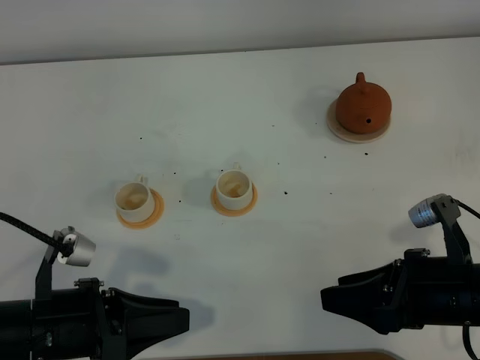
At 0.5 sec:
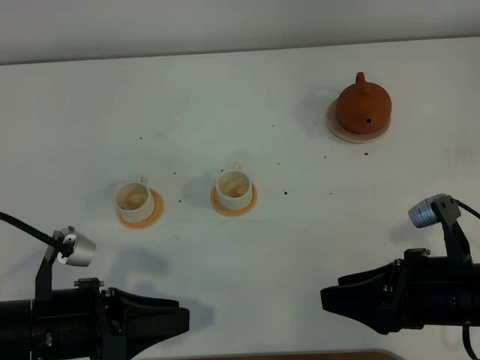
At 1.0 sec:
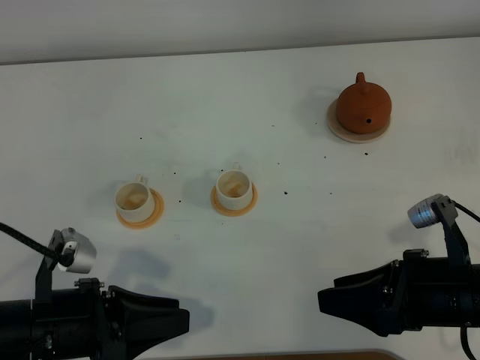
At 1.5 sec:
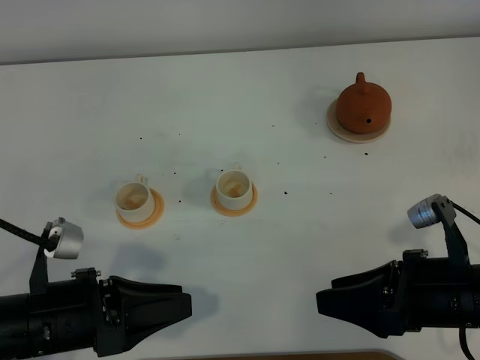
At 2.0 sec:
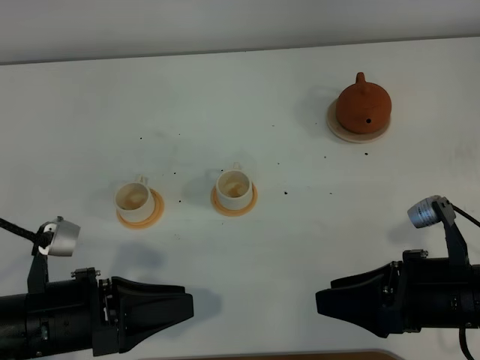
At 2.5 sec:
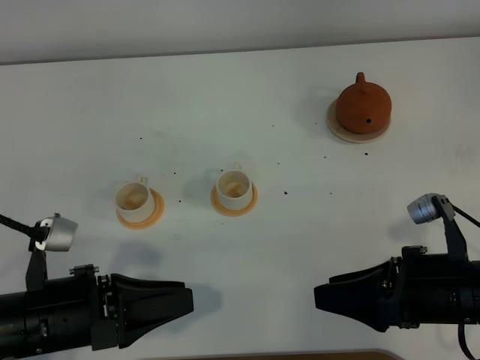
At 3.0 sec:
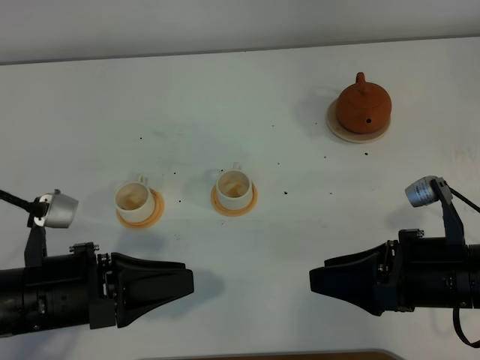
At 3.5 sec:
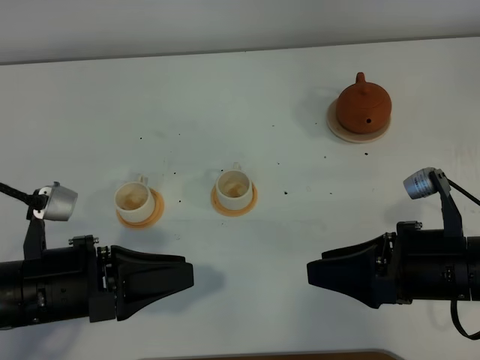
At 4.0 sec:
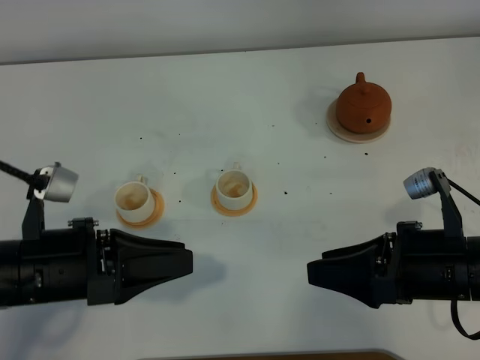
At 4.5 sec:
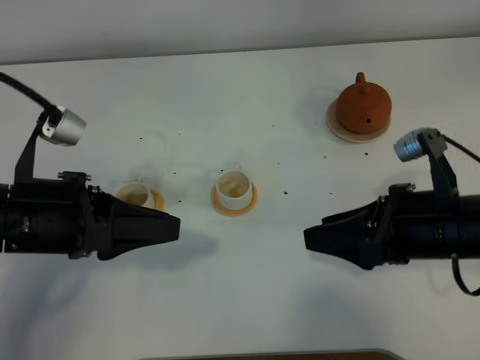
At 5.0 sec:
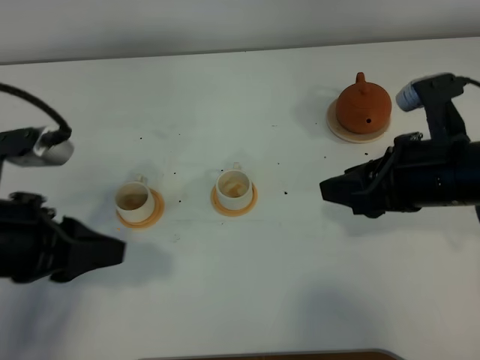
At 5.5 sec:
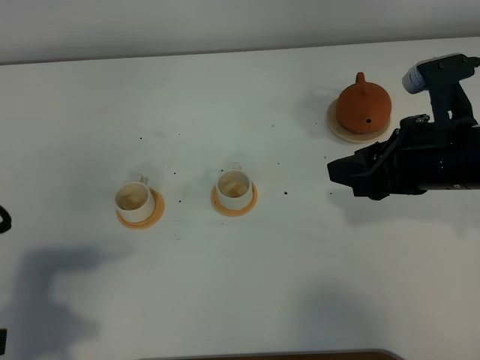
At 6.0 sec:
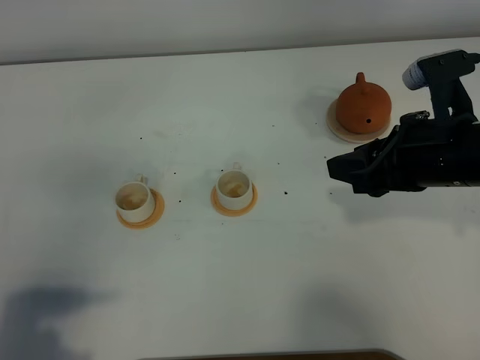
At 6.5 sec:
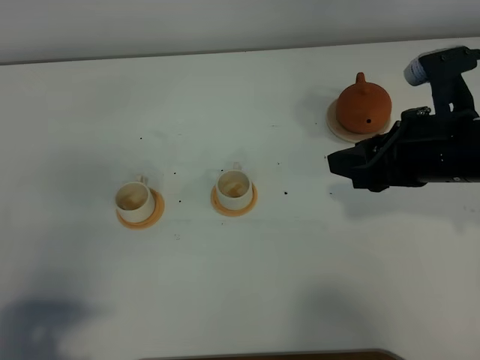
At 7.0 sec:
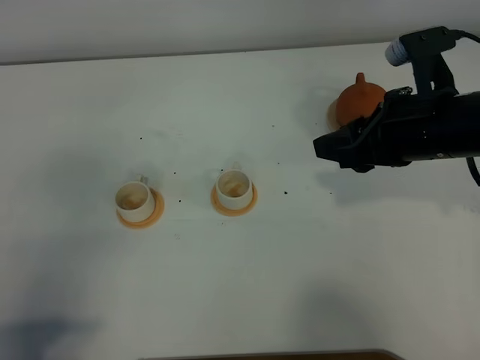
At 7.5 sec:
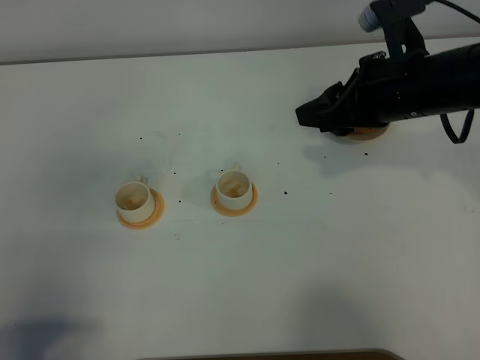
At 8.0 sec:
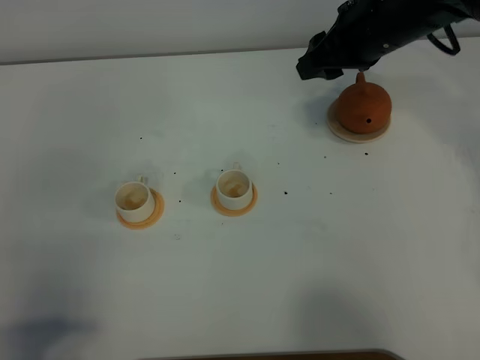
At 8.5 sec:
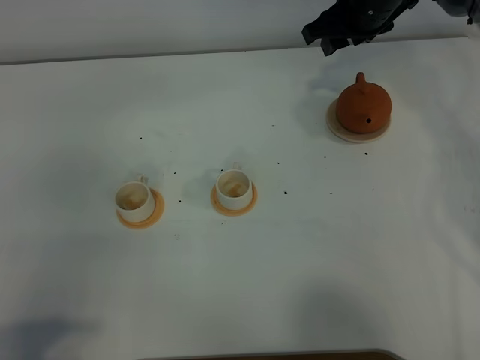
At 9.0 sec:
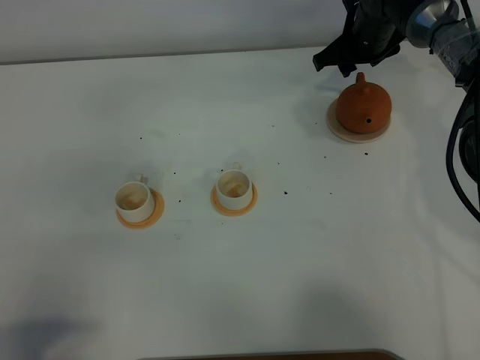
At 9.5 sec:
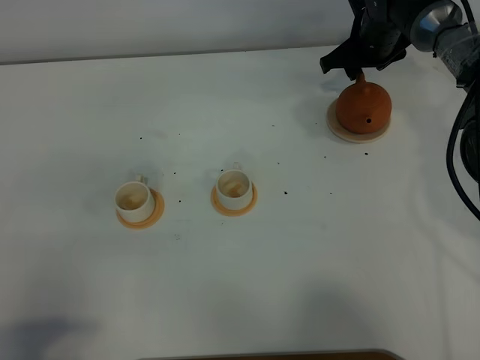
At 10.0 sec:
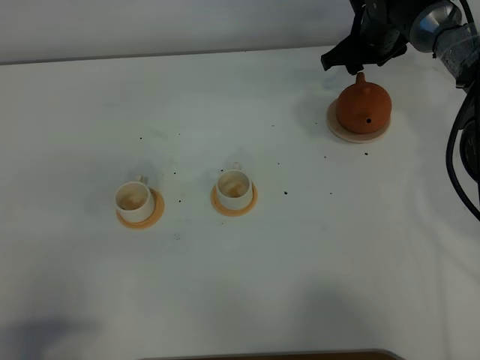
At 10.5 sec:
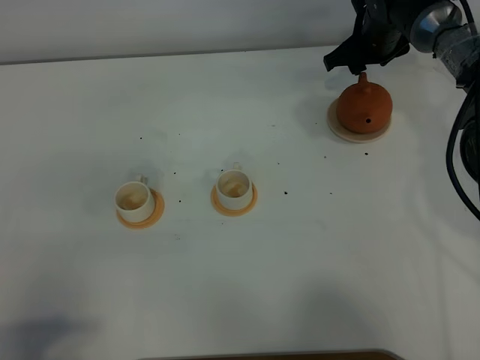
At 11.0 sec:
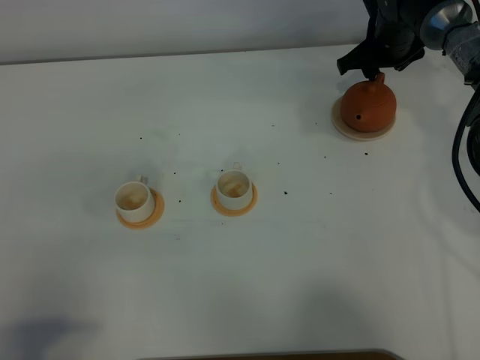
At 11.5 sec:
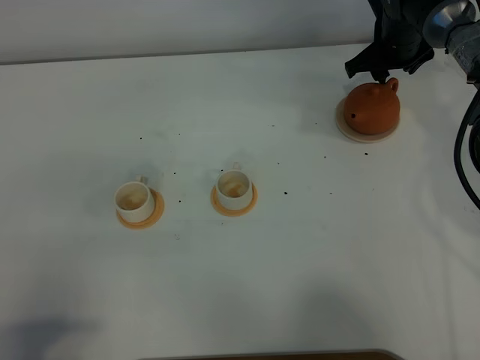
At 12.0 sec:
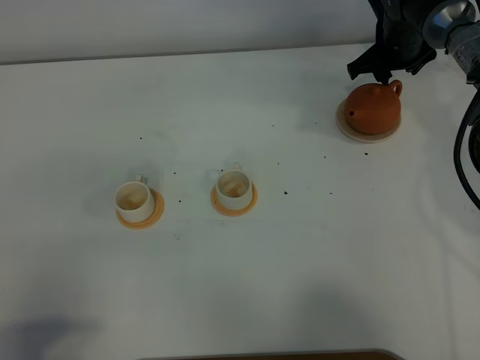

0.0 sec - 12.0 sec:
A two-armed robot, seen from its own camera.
Task of the whole recording: grasp the brown teapot and pour the tea into the two white teacups one by one, put the brown teapot back in its original place.
0.0 sec - 2.0 sec: The grippers stay close to where they were, moving slightly.
2.0 sec - 4.0 sec: The left gripper moves some 5 cm.
4.0 sec - 6.0 sec: The left gripper heads backward, to the left and upward, covering approximately 15 cm. Meanwhile the right gripper goes some 10 cm forward and upward.
6.0 sec - 8.0 sec: The right gripper moves forward and to the left, some 20 cm.
8.0 sec - 10.0 sec: The right gripper is displaced forward and downward by roughly 15 cm.
10.0 sec - 12.0 sec: The grippers move only a little.

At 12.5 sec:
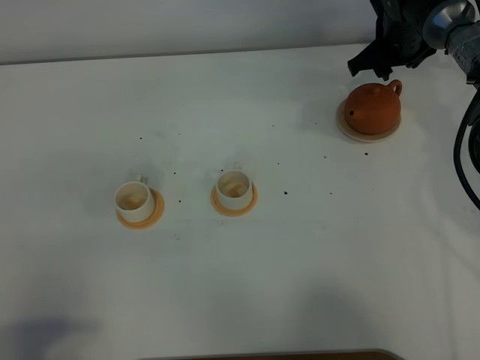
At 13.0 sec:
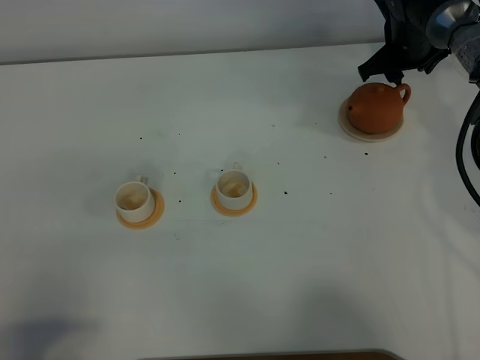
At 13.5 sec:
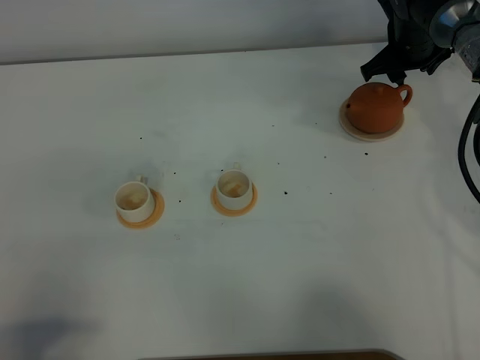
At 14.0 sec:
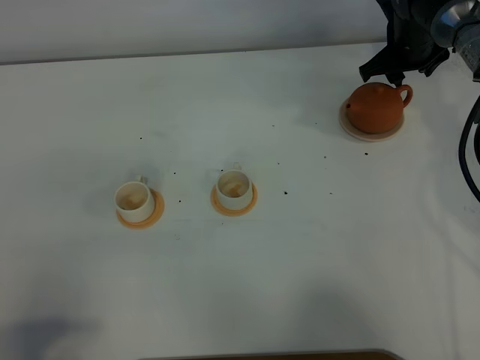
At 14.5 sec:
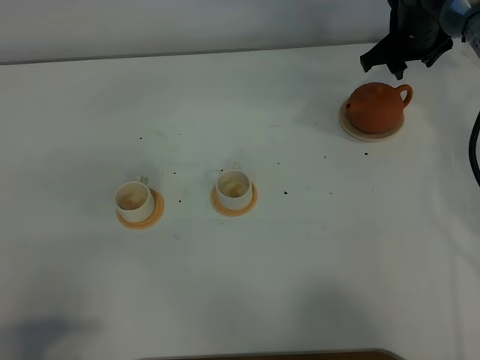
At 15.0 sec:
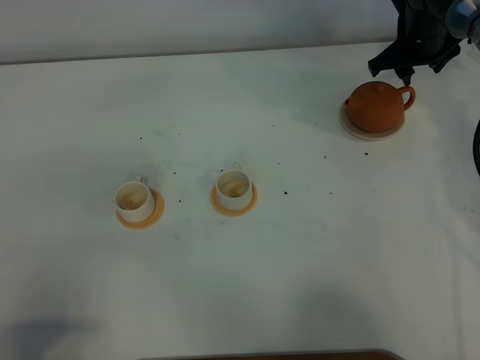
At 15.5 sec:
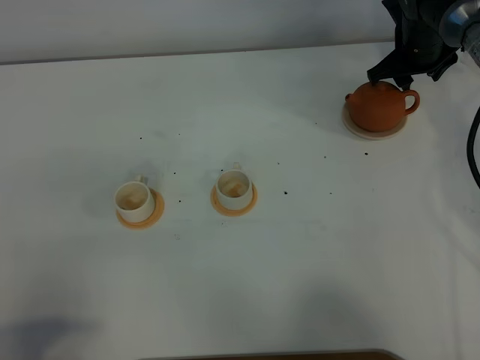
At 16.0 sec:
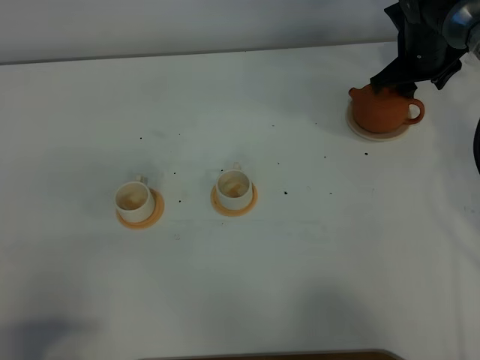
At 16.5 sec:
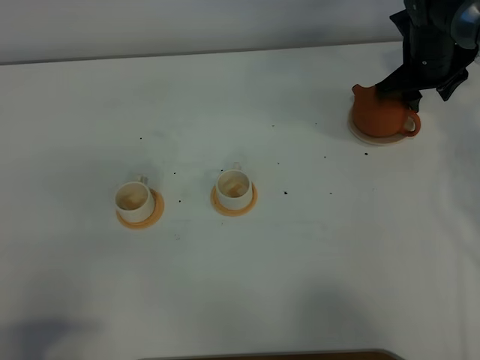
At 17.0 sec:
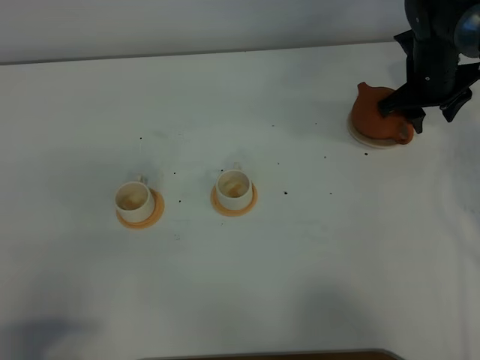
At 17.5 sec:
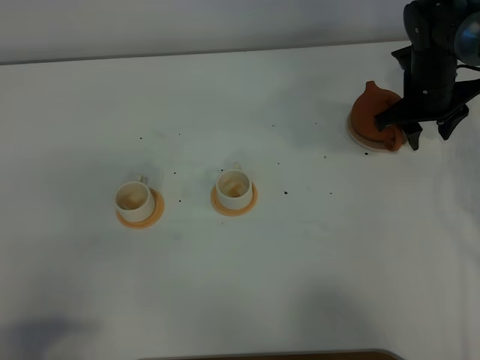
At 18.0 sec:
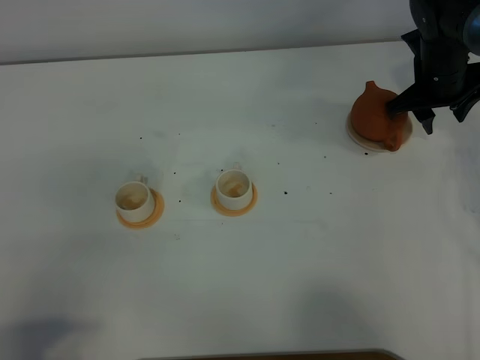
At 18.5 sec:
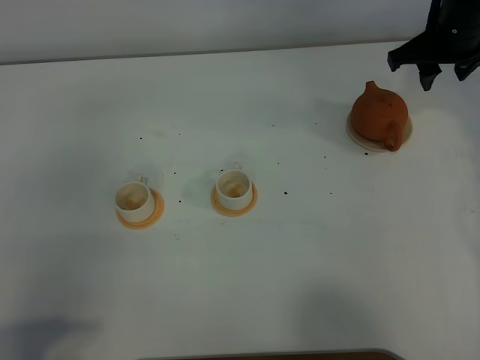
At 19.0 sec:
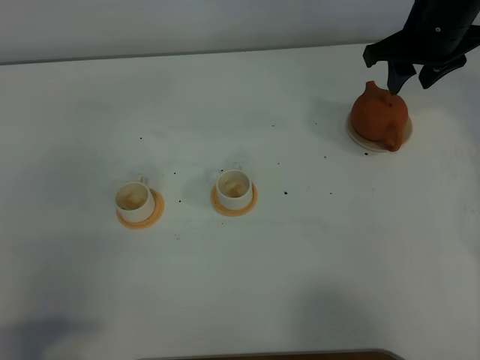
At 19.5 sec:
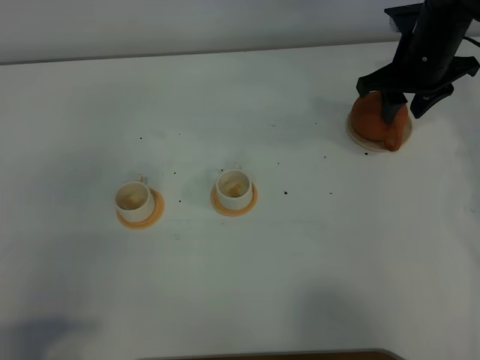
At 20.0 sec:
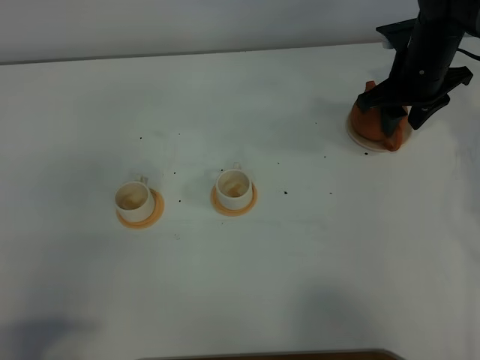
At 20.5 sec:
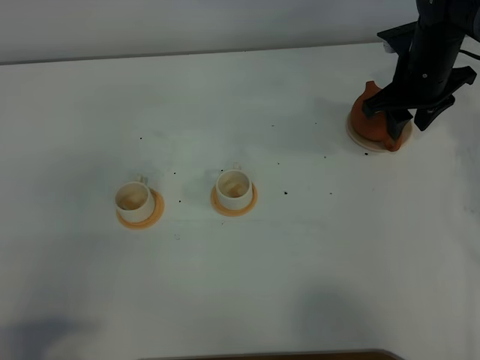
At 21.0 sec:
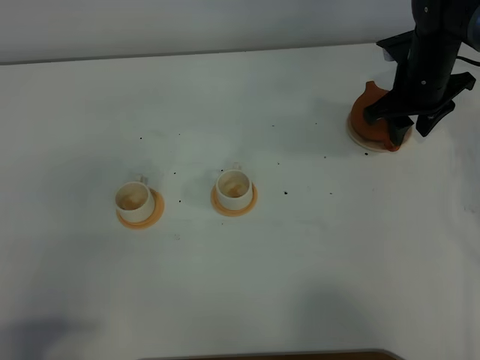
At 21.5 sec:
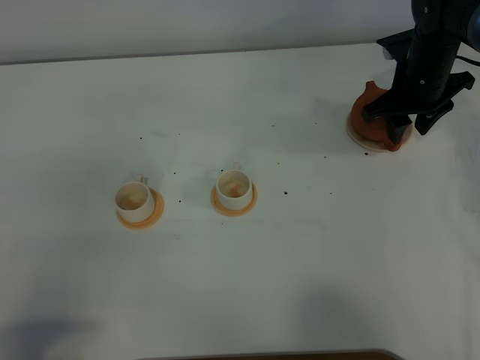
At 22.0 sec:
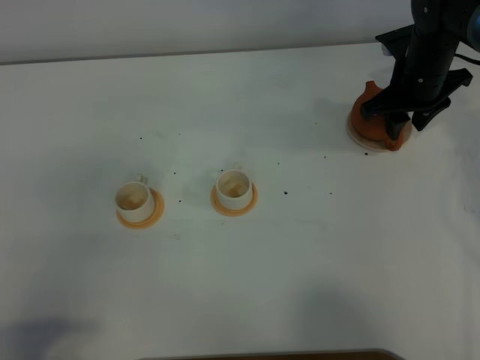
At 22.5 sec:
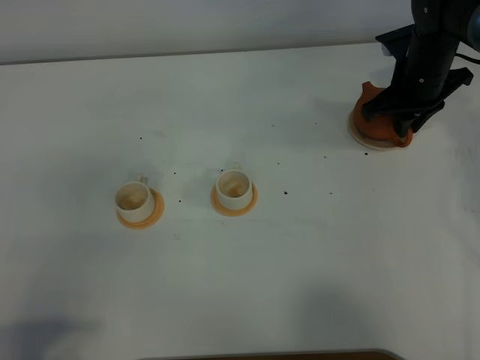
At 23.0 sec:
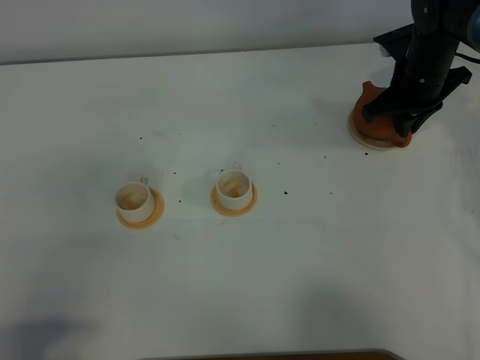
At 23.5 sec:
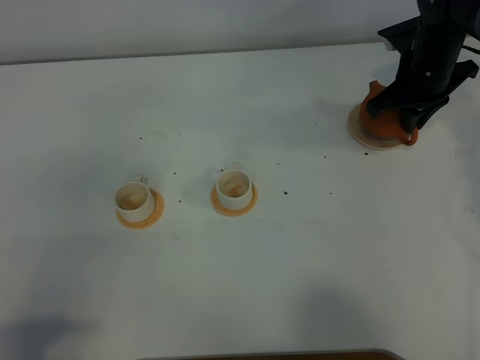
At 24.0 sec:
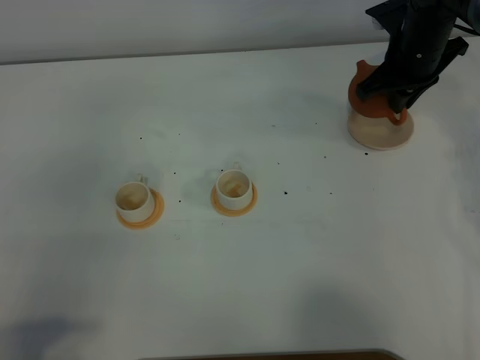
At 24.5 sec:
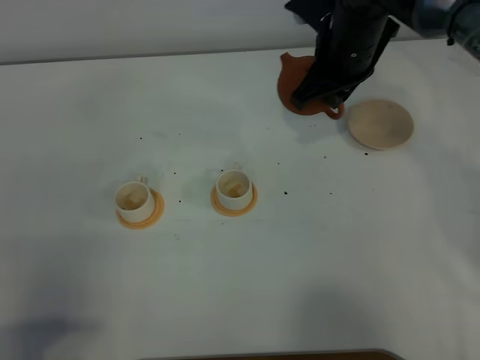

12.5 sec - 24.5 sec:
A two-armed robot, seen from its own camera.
Task of the whole recording: grasp the brown teapot and pour the tea into the two white teacups one by one, put the brown teapot back in its original place.
Step, 12.5 sec - 24.0 sec: Pick up the teapot with the right gripper.
12.5 sec - 16.5 sec: There are only small adjustments of the grippers.
16.5 sec - 18.5 sec: The right gripper moves upward, some 10 cm.
18.5 sec - 20.5 sec: The right gripper travels downward by about 10 cm.
20.5 sec - 22.5 sec: The right gripper closes up.
22.5 sec - 24.5 sec: The right gripper heads to the left, upward and backward, covering approximately 15 cm.

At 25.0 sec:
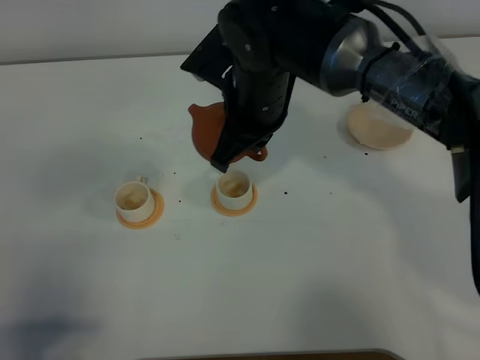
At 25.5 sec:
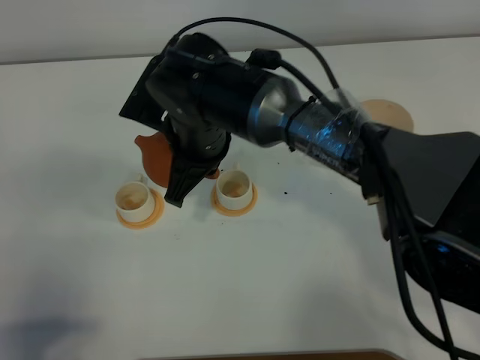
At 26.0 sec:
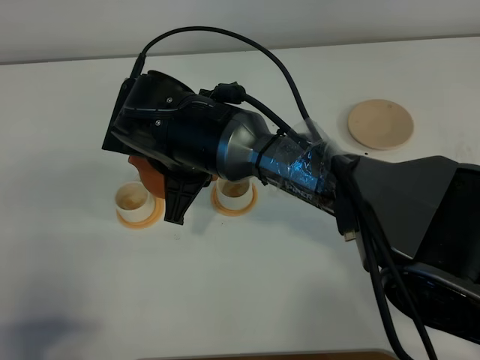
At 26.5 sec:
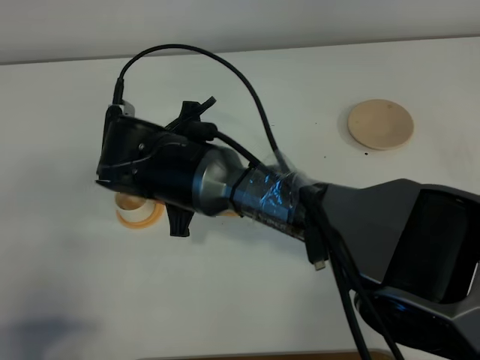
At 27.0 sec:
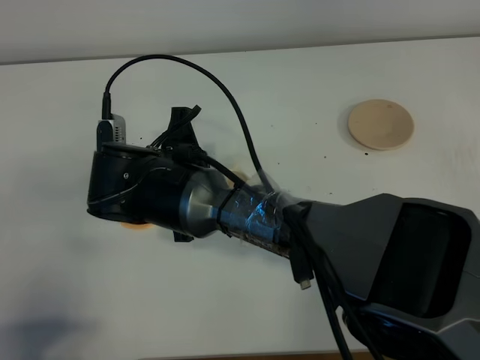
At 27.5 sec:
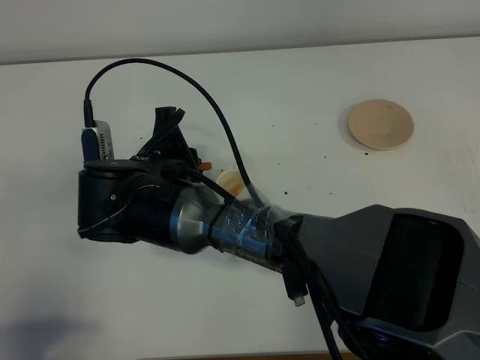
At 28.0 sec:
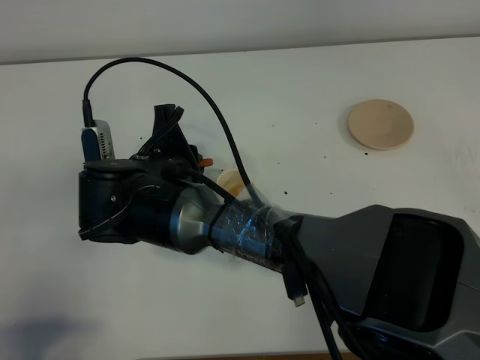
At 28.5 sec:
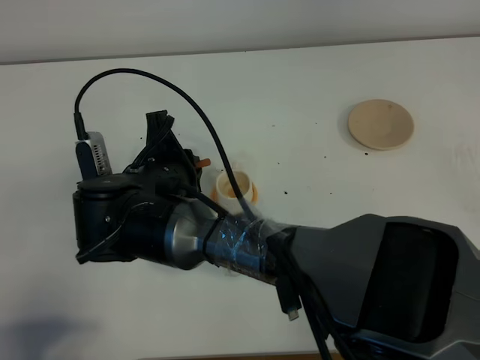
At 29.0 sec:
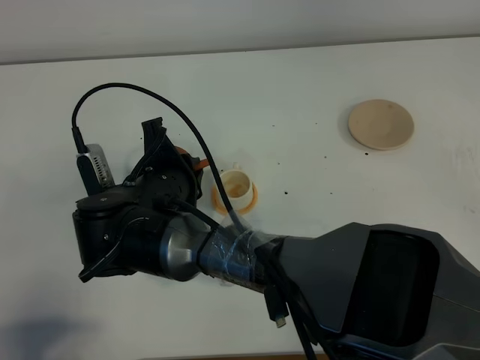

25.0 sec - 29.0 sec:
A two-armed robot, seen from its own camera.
Task of the whole recording: grasp the brown teapot and pour the tea into the two white teacups one by one, put the brown teapot back in its original place.
25.0 sec - 27.0 sec: The right gripper moves to the left, backward and downward, roughly 15 cm.
